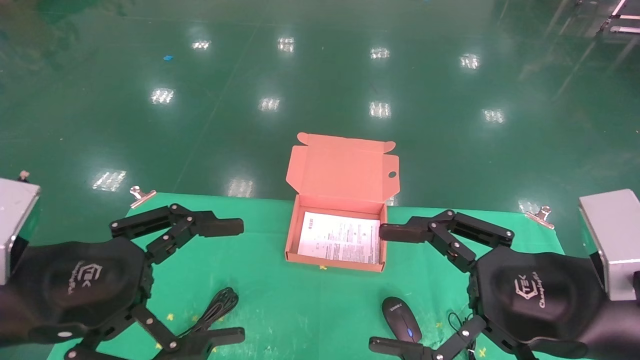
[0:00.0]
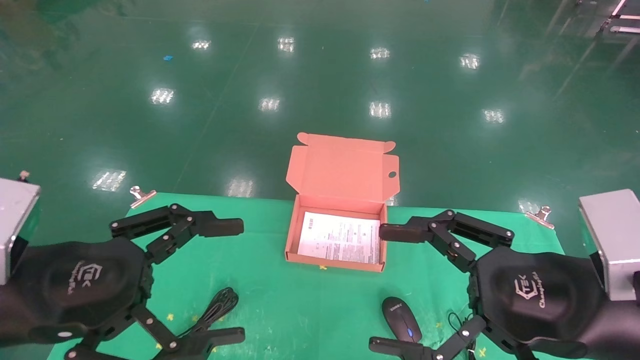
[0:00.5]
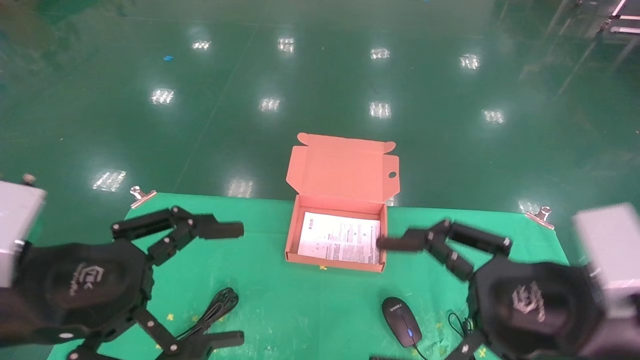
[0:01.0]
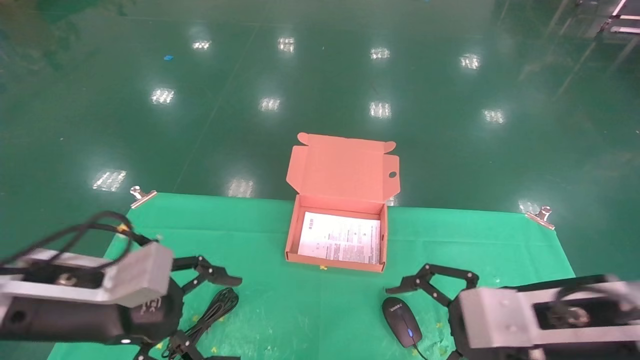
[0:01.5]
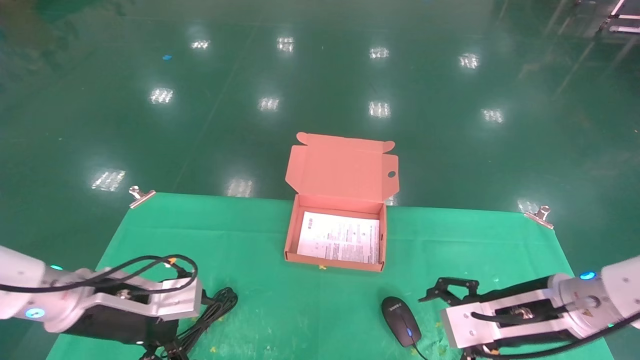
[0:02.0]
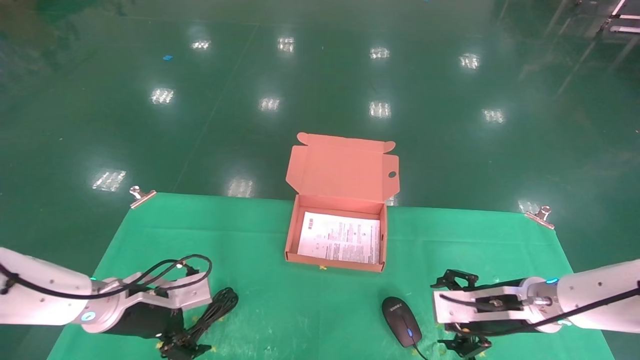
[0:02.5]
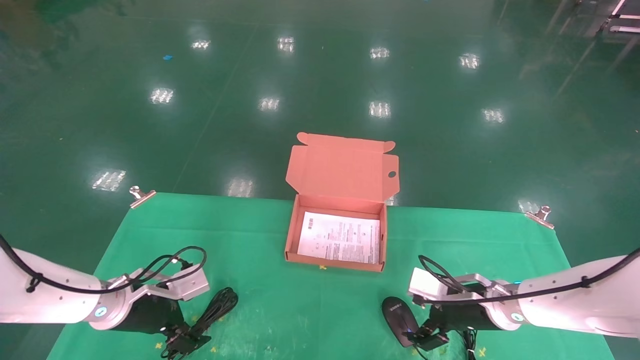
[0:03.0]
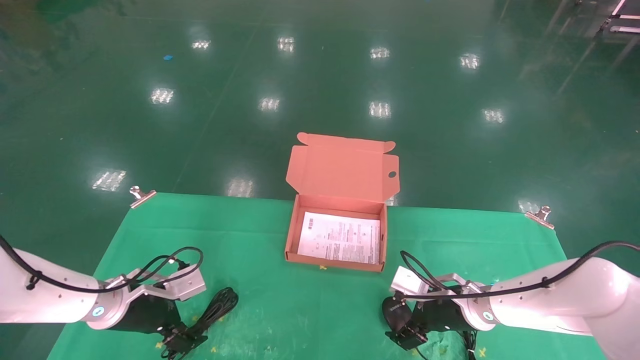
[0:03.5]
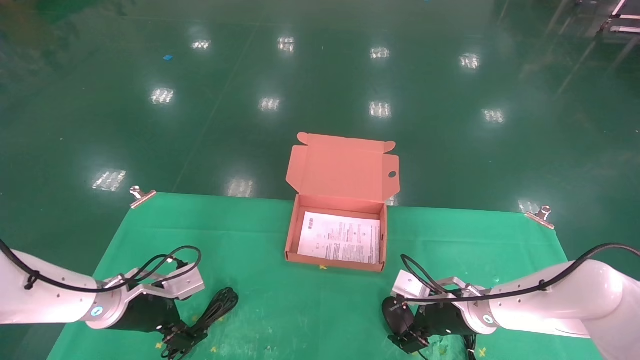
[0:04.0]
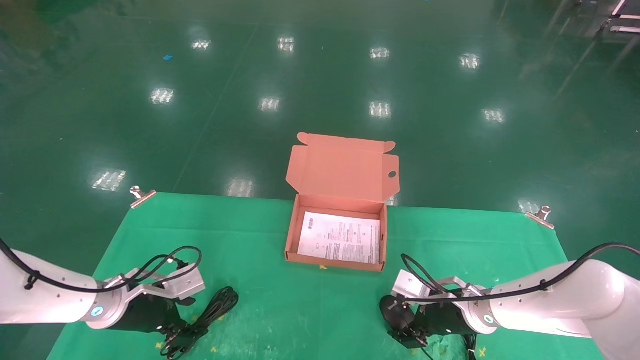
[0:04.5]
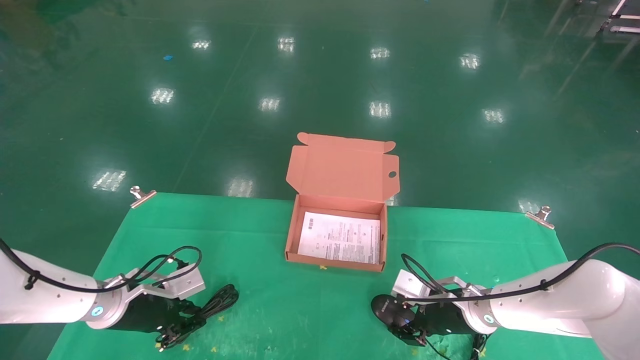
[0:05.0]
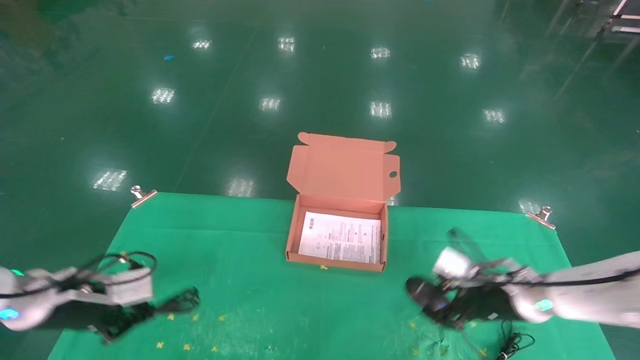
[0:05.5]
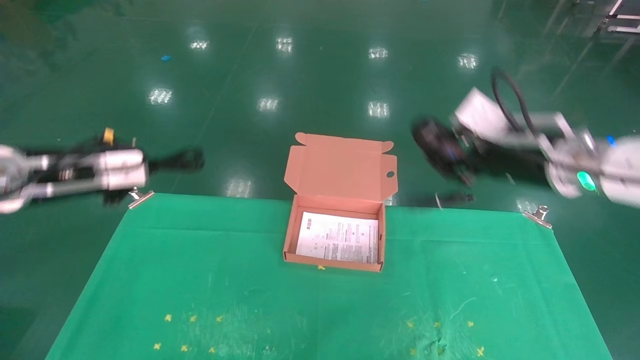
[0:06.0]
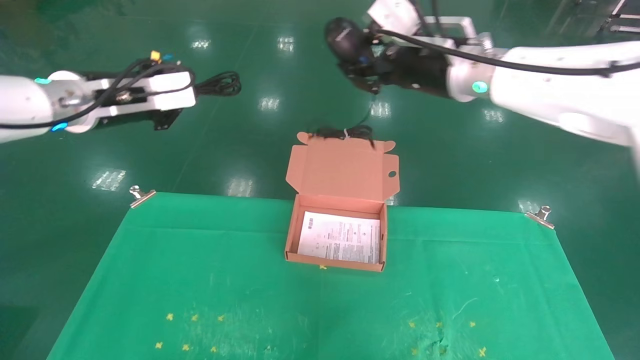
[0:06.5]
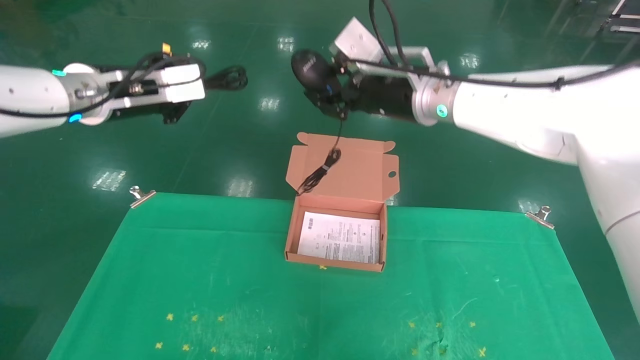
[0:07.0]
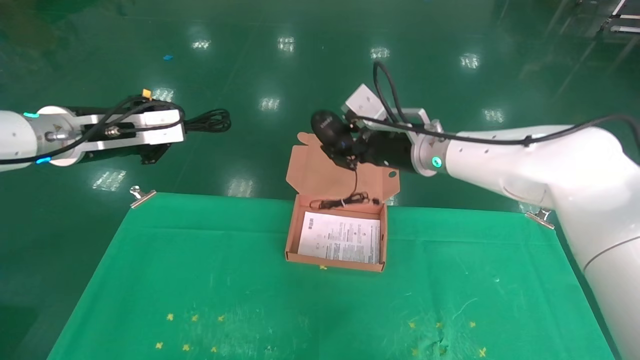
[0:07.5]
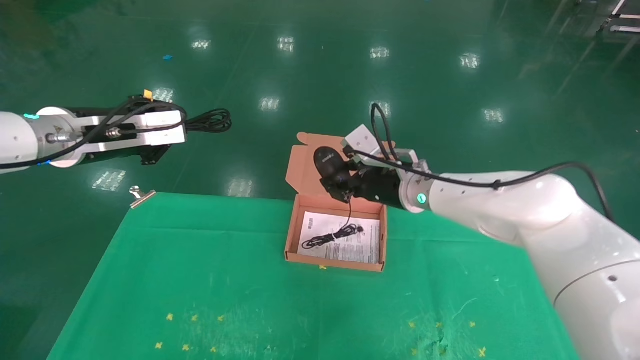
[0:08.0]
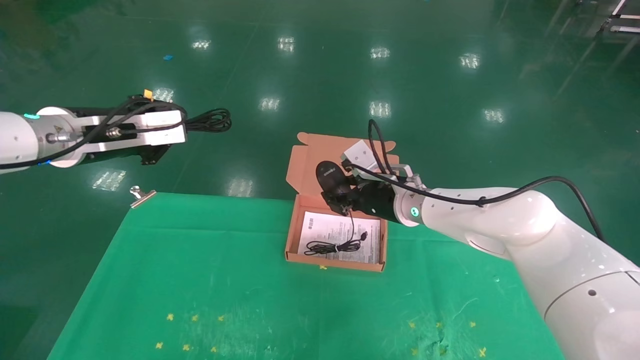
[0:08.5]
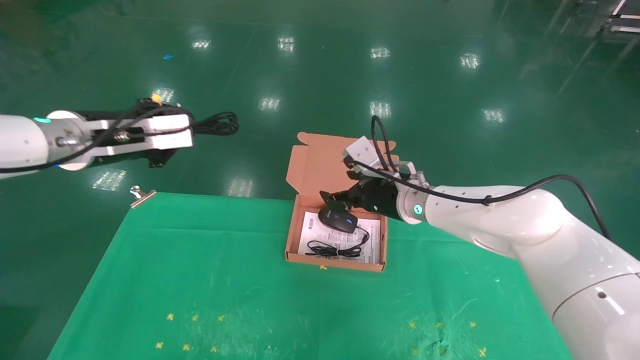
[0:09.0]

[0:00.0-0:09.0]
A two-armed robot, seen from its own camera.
Task of the whole recording: grasp data cable left put into box grasp mouse right put into box.
Step, 0:01.5 to 0:04.5: Grab and pick up both the mouse and power cord from the accessory packaging area at the same time.
0:00.0 to 0:02.0: The grippers both shift forward and downward by about 15 cm.
0:02.0 to 0:04.5: The grippers both shift forward and downward by about 15 cm. The right gripper closes.
0:04.5 to 0:07.0: The grippers both shift upward by some 30 cm. The right gripper closes up. Meanwhile the left gripper closes its fingers.
0:07.0 to 0:09.0: The right gripper goes about 15 cm downward. Meanwhile the left gripper moves about 5 cm.

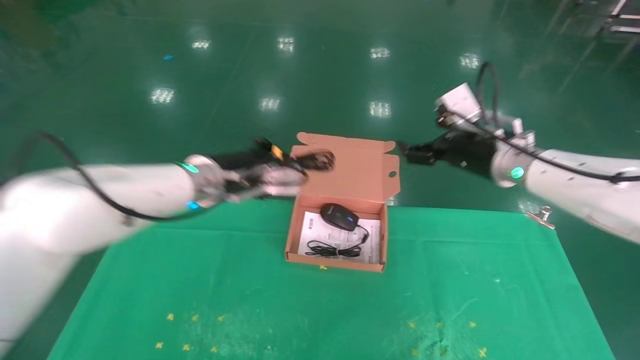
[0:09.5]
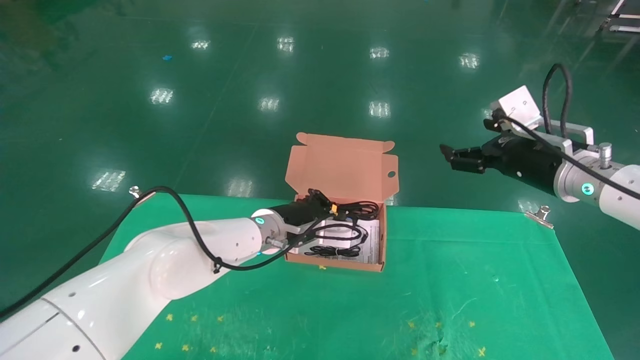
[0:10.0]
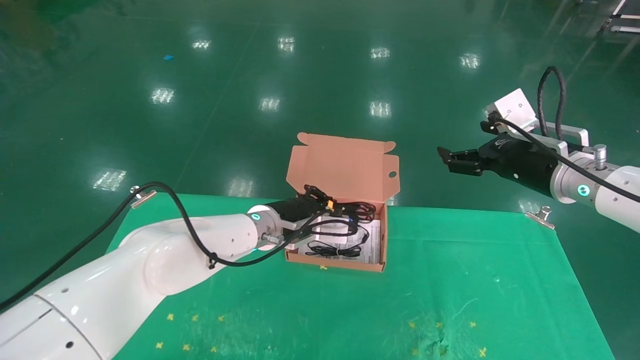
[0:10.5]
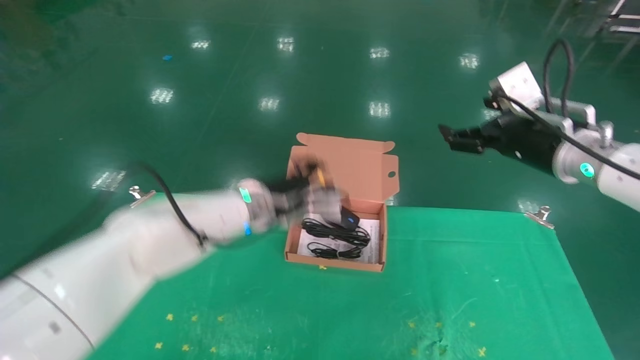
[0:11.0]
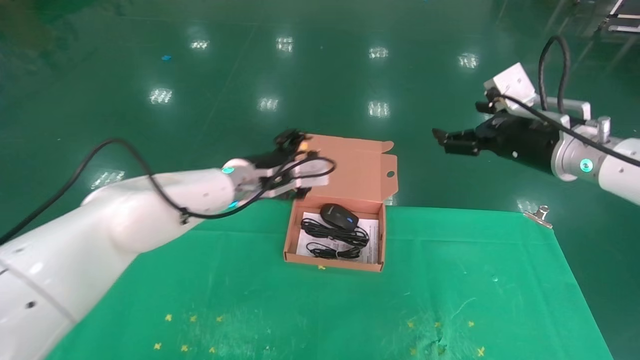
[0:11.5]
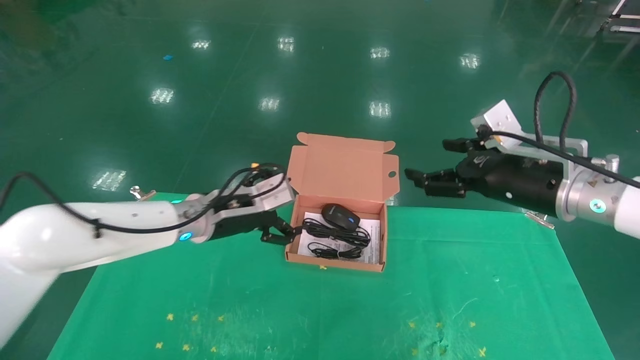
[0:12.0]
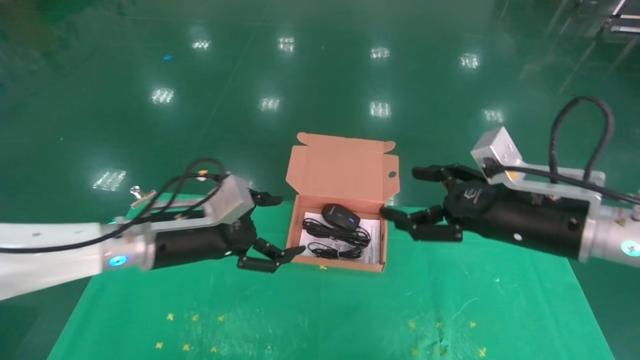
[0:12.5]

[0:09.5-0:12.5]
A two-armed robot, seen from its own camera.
Task of the whole recording: grasp data cable left put into box grasp mouse right put into box.
0:09.5 to 0:11.0: The left gripper opens. The right gripper shifts by some 5 cm.
0:11.0 to 0:12.5: The right gripper moves backward and downward, about 10 cm. The left gripper moves to the left and backward, approximately 15 cm, and opens up.
